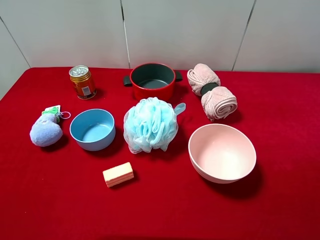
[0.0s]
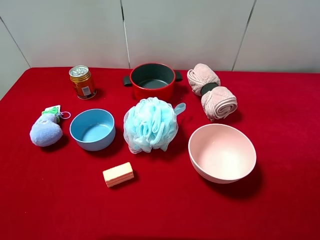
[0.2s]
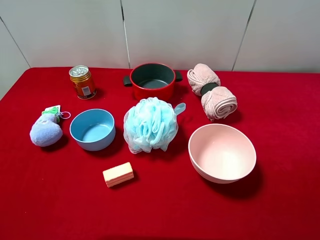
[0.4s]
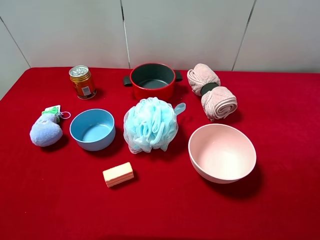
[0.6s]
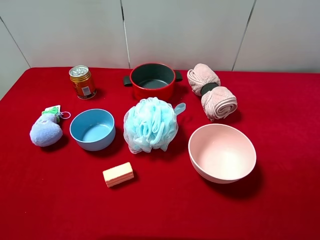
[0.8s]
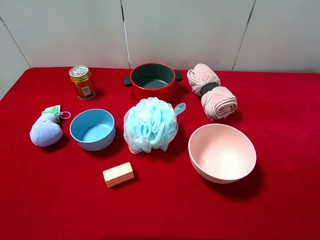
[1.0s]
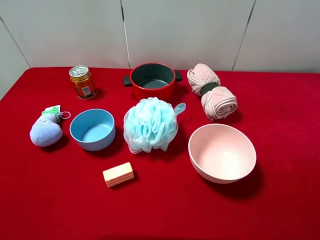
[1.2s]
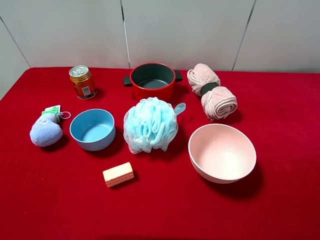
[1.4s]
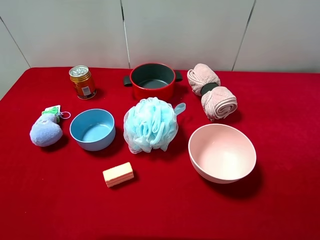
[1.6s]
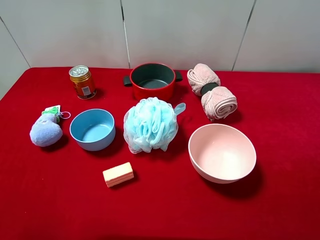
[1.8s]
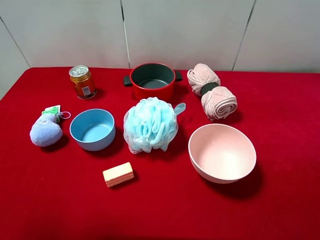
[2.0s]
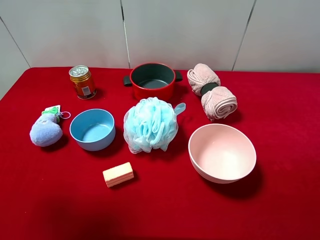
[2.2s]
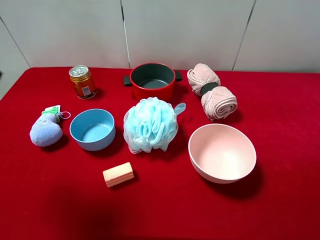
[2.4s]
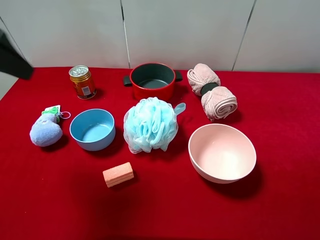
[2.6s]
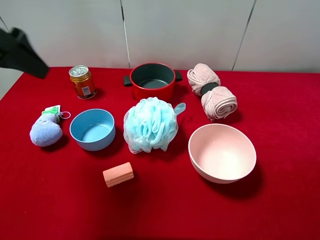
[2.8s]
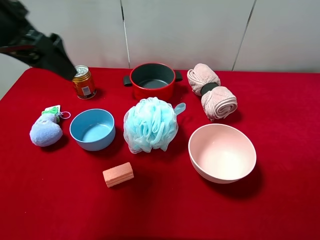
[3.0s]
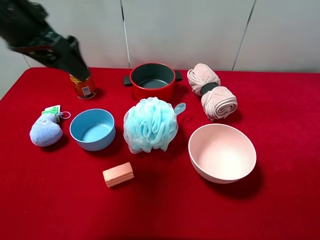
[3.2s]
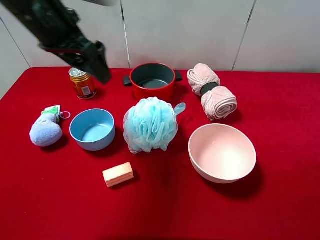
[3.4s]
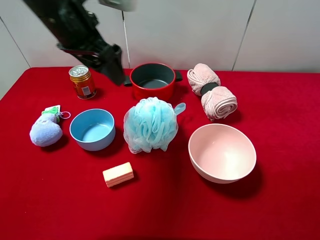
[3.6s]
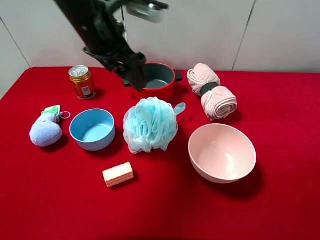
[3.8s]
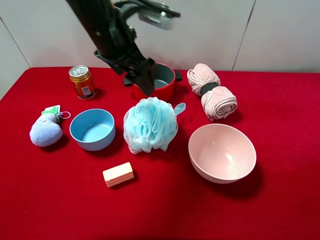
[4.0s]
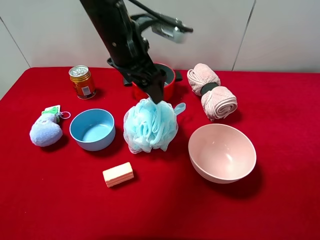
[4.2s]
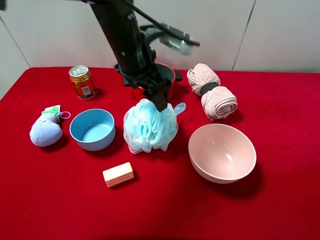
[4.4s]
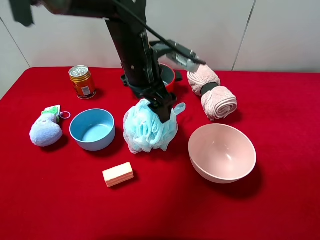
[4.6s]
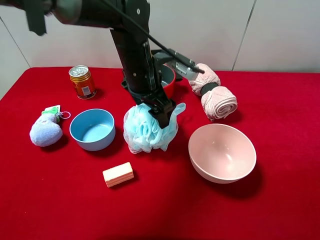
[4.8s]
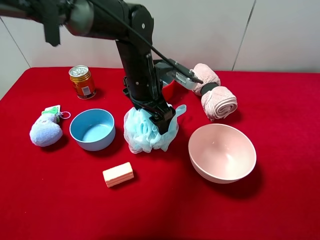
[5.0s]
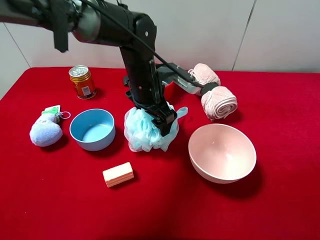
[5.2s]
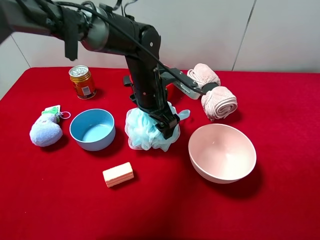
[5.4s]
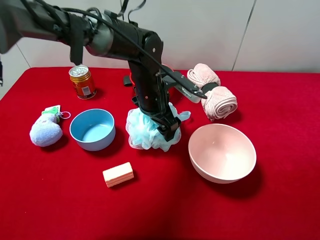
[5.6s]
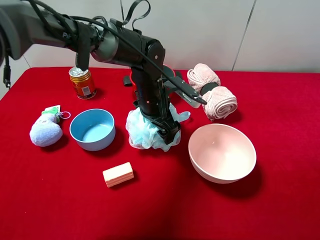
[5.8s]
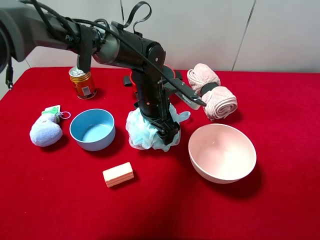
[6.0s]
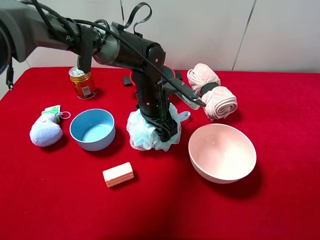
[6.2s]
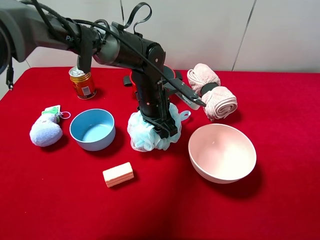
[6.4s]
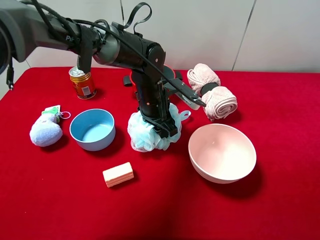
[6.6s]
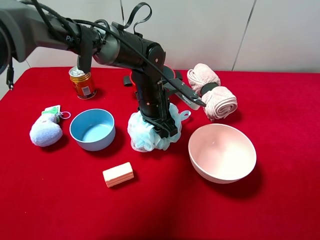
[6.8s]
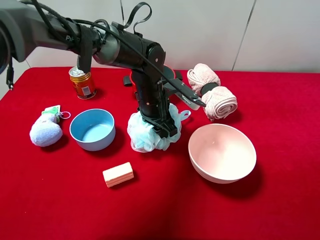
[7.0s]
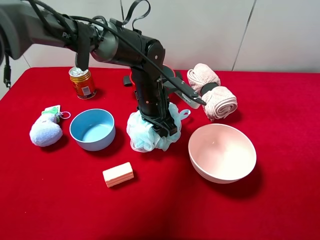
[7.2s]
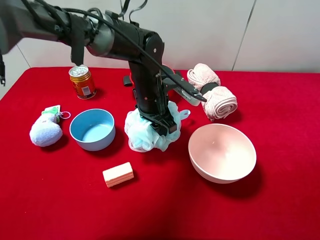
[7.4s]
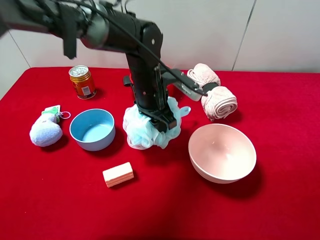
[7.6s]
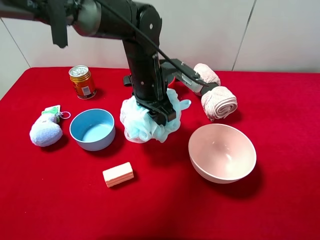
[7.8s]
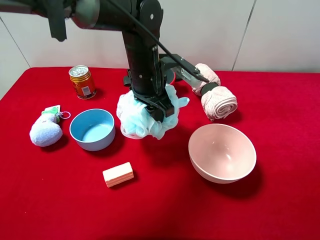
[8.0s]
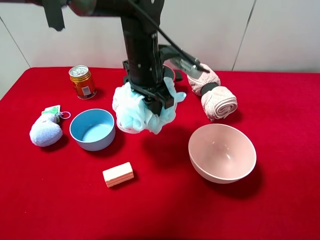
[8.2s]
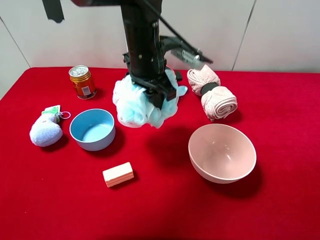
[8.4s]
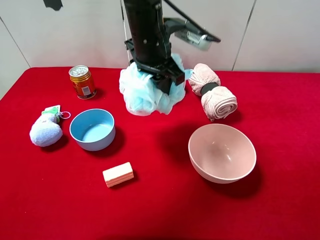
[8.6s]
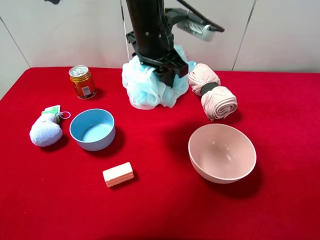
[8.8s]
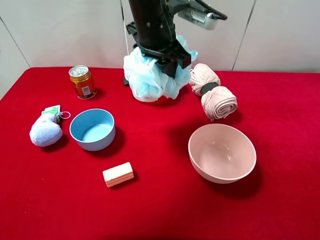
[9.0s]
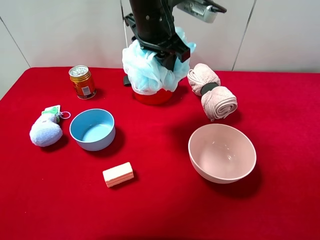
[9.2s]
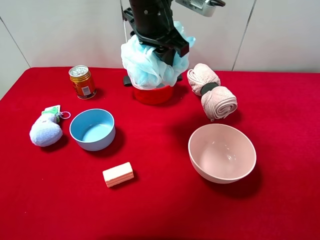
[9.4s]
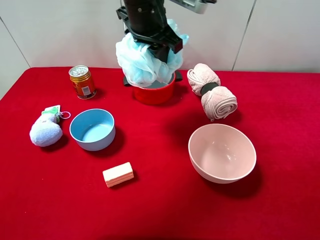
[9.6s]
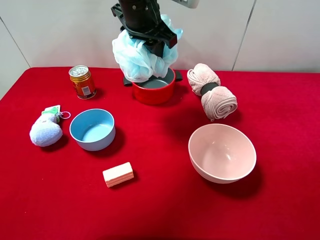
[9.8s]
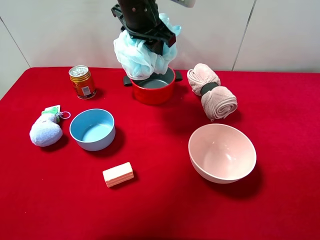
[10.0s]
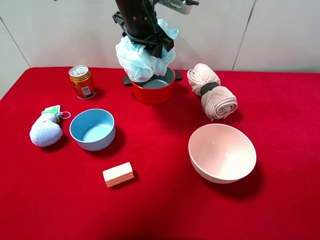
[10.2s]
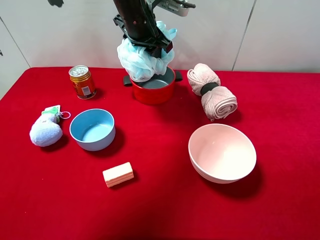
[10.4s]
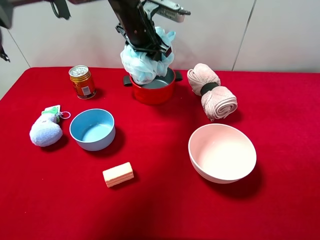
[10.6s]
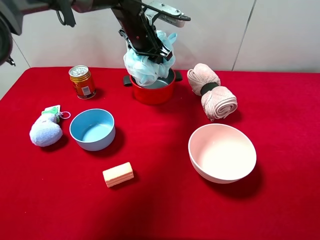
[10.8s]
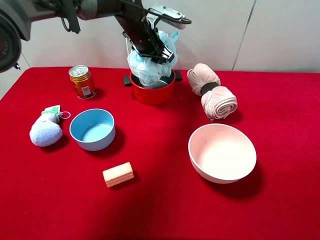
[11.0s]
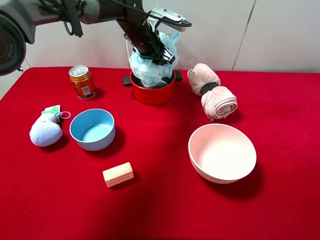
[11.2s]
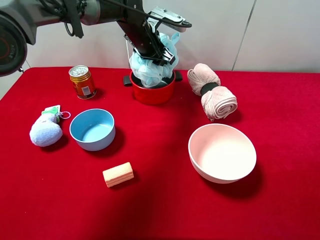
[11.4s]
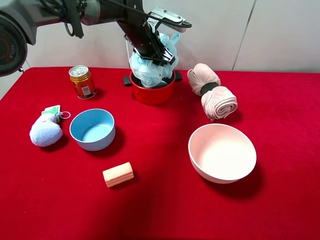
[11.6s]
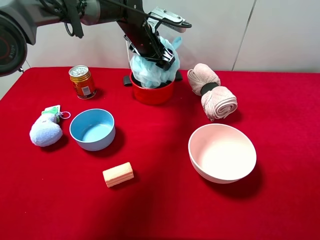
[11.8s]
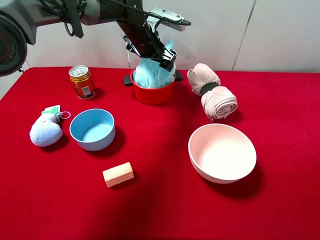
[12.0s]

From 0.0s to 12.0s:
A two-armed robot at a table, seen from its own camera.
Task of the whole recording: pick up an item with a gripper and place it in a random container on the desktop.
From 1.6s to 3.0s: The left gripper goes approximately 25 cm forward.
From 3.0s to 4.4s: The left gripper goes some 20 cm to the right and downward.
From 4.4s to 6.0s: The left gripper is displaced downward by about 10 cm.
From 6.0s to 7.6s: The left gripper closes.
From 7.6s to 9.0s: The left gripper goes approximately 15 cm upward.
From 9.0s to 10.4s: The left gripper heads forward, covering some 10 cm.
From 10.4s to 12.0s: The left gripper goes approximately 5 cm downward, and opens up.

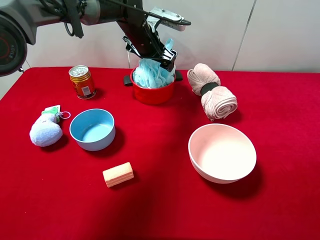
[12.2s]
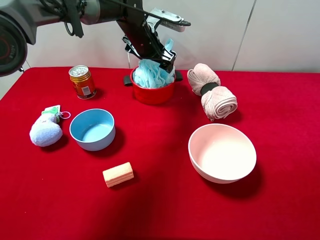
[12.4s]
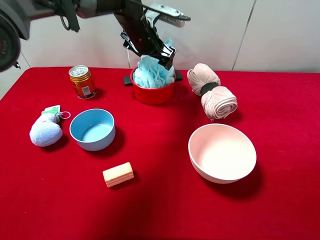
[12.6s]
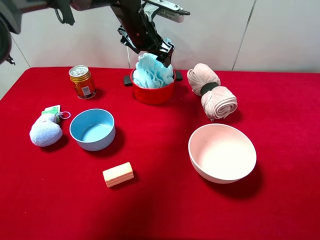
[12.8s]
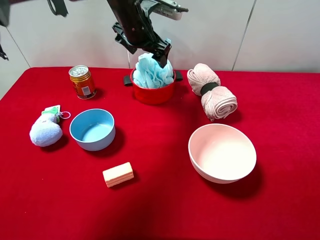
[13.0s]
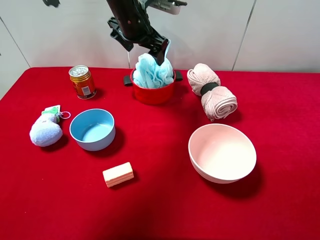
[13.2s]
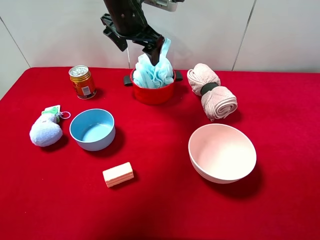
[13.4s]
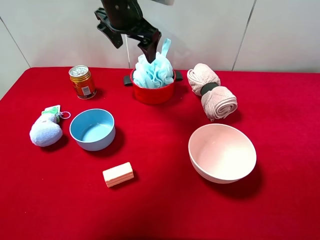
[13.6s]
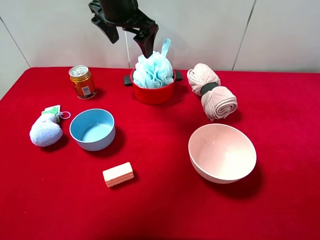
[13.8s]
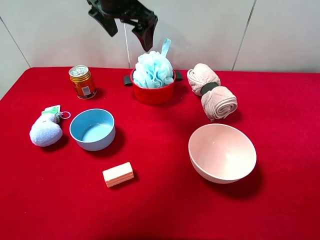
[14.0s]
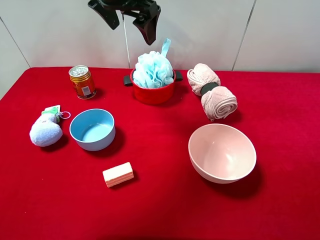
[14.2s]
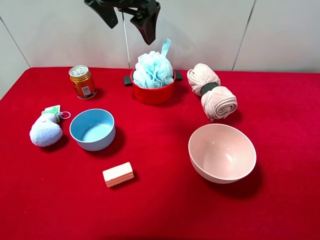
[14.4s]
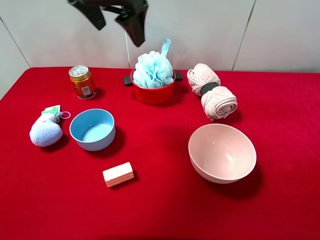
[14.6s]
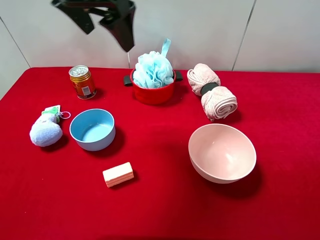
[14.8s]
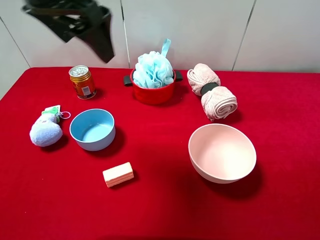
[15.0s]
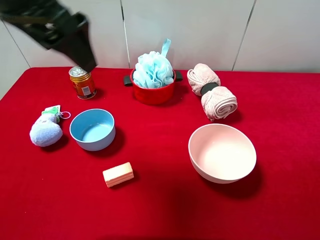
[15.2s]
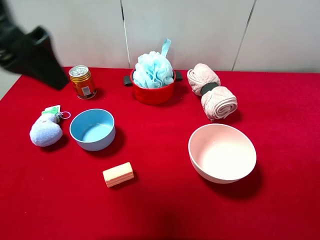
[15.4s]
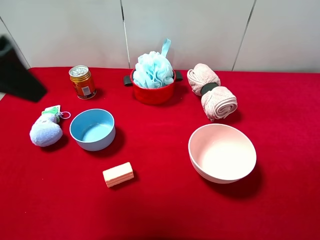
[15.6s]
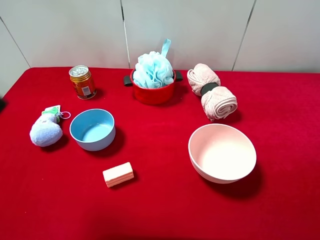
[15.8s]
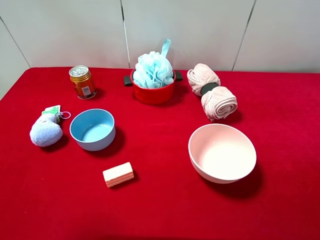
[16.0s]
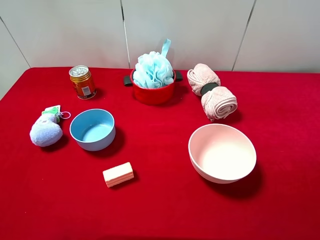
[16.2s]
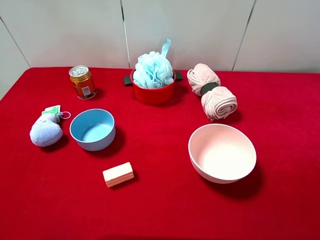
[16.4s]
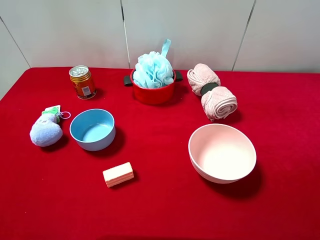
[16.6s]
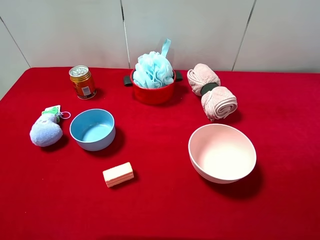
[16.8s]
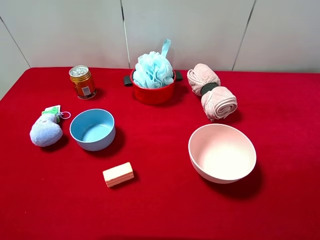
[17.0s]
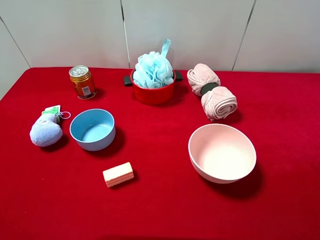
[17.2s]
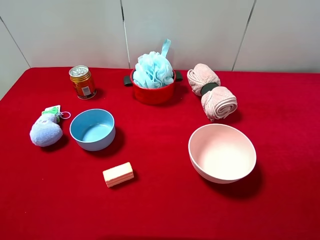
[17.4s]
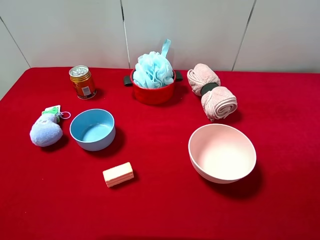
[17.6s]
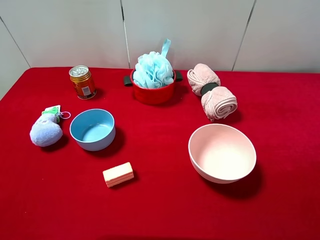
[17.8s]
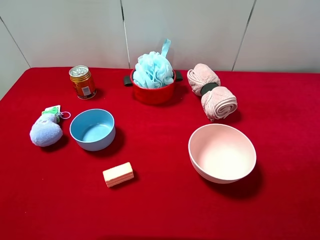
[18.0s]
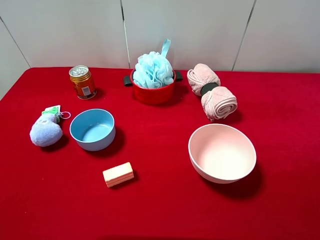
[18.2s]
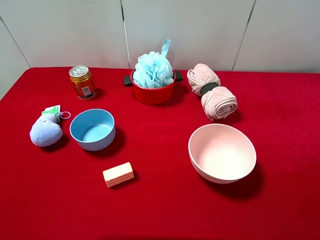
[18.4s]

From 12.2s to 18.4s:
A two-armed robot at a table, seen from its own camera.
Task of the whole recording: pick up an item with a gripper and place it in a random container on the desktop.
From 12.2s to 13.8s: The left gripper shifts approximately 15 cm upward and backward.
From 13.8s to 15.4s: The left gripper goes roughly 25 cm backward and to the left.
From 15.4s to 16.8s: The left gripper travels backward and to the left by roughly 20 cm.

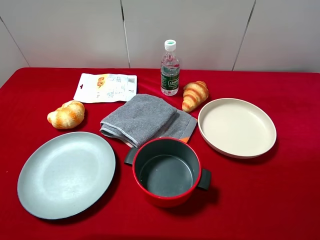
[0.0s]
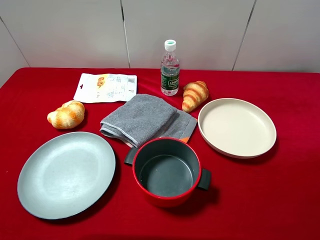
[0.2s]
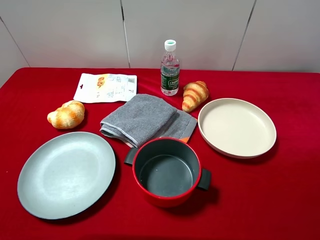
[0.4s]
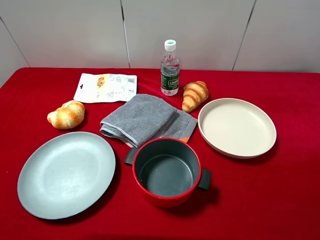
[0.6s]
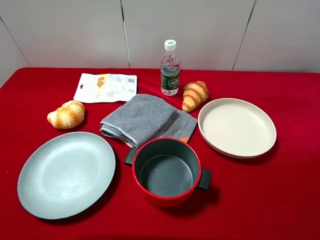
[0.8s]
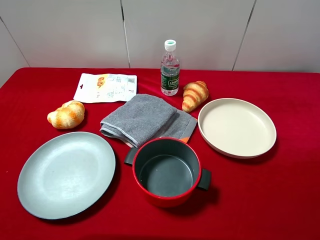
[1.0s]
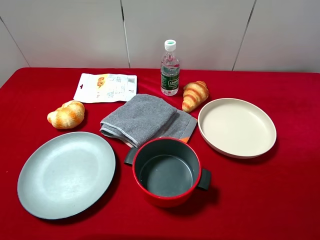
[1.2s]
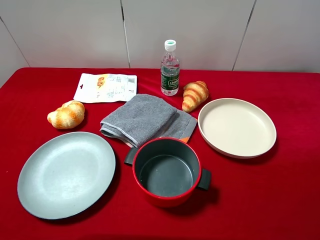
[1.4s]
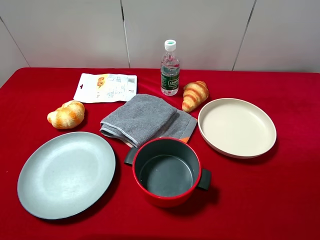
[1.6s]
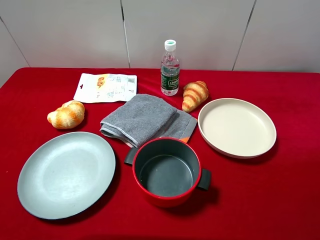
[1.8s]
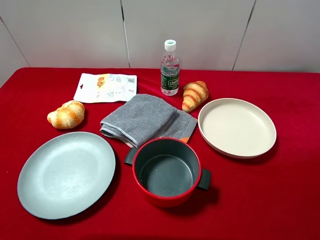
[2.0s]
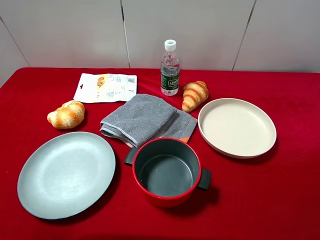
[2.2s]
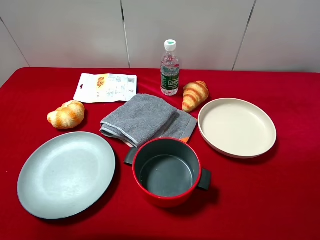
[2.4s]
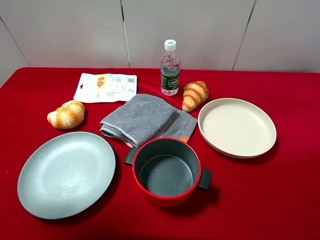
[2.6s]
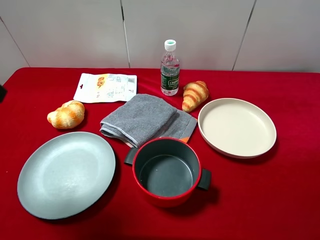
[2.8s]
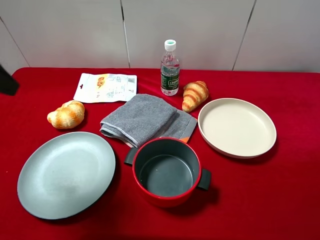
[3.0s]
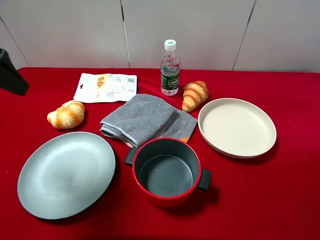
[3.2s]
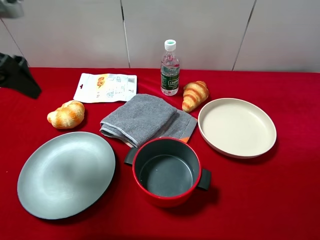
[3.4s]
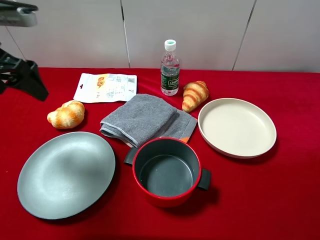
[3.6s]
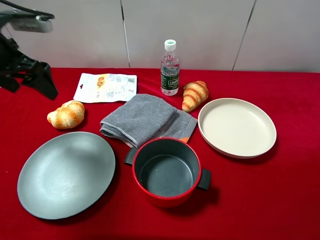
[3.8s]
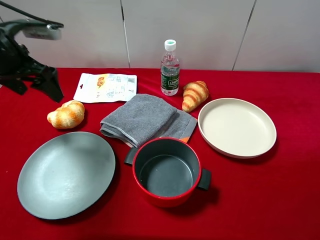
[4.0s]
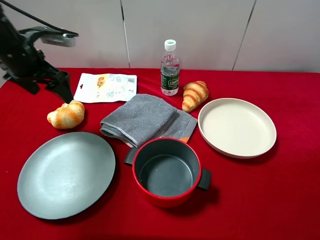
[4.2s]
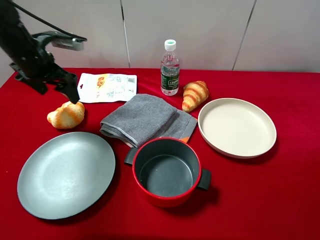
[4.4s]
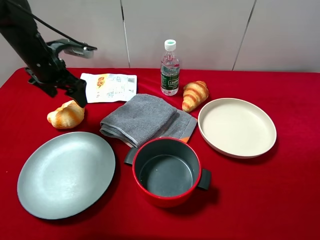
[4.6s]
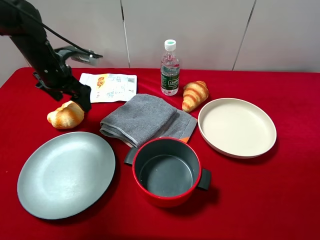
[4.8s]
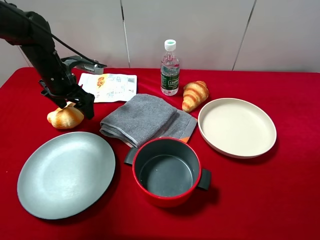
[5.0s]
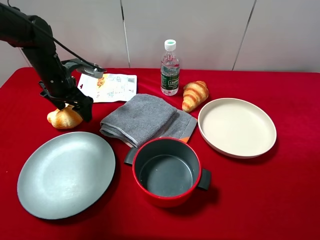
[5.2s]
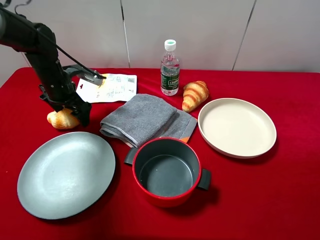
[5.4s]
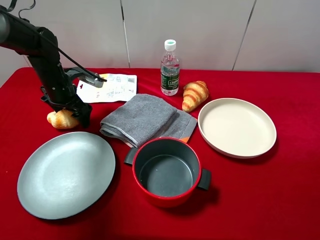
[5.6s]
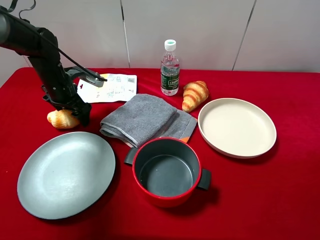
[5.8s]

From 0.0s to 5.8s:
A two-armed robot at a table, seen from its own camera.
Task of the whole recording: pick up an item with a gripper and place it in a random container on the desktop.
From 0.0s to 1.4s: Both grippers stay about where they are.
From 1.4s to 2.8s: The left gripper shifts about 20 cm forward.
From 2.8s to 4.4s: The left gripper goes about 25 cm forward and downward.
From 4.4s to 5.8s: The left gripper is displaced downward by roughly 10 cm.
